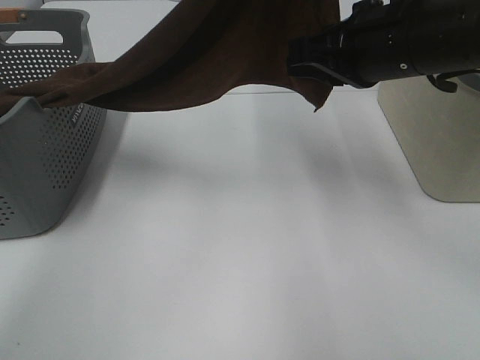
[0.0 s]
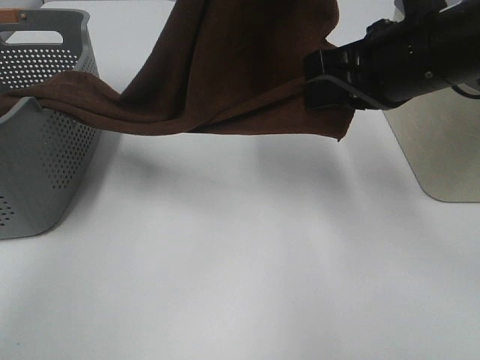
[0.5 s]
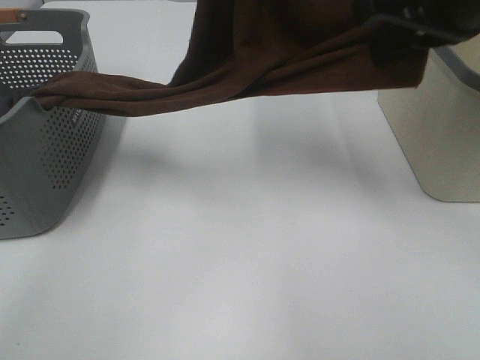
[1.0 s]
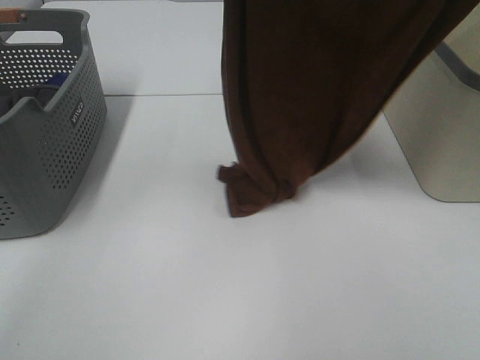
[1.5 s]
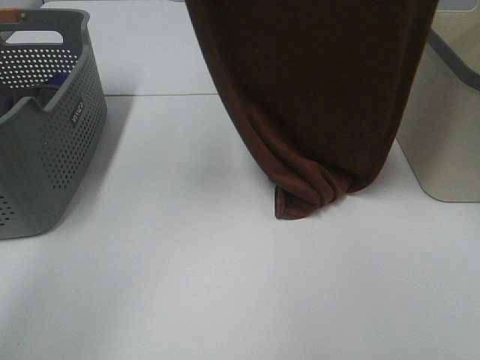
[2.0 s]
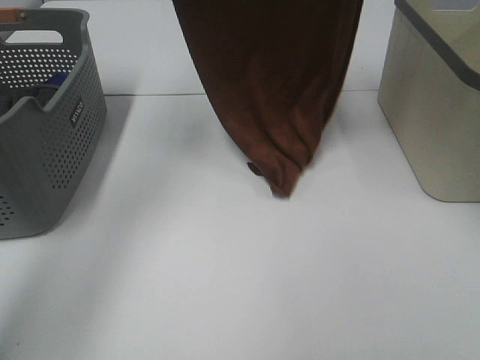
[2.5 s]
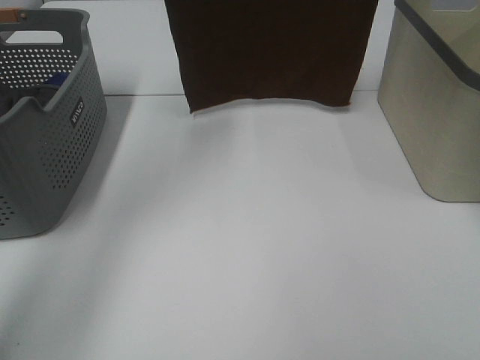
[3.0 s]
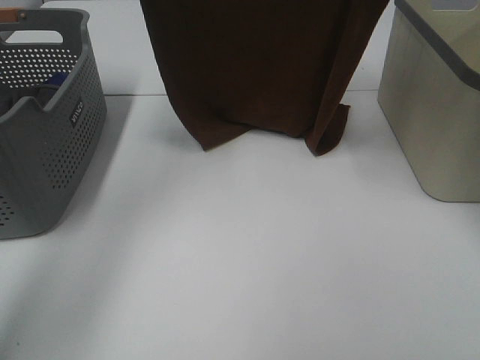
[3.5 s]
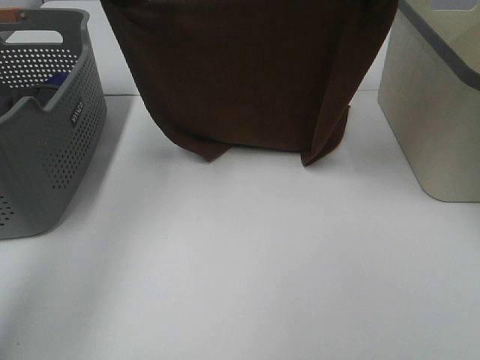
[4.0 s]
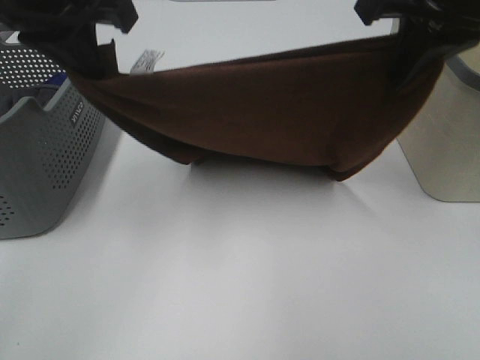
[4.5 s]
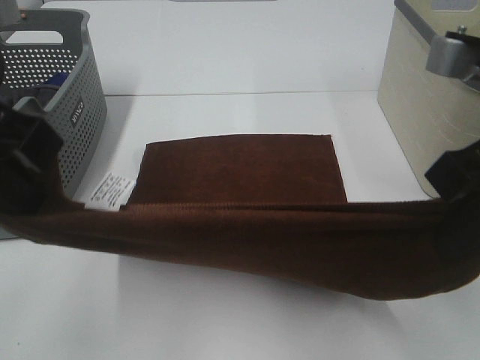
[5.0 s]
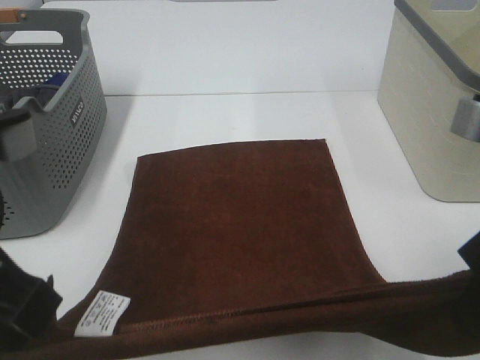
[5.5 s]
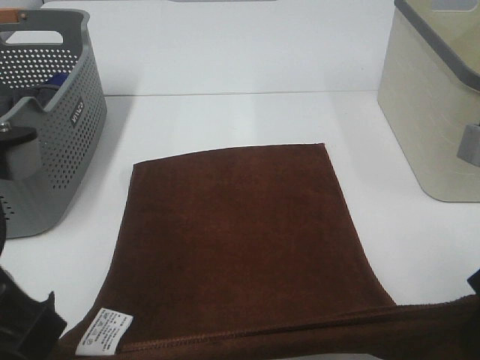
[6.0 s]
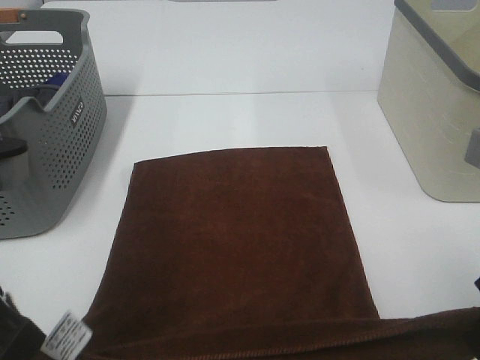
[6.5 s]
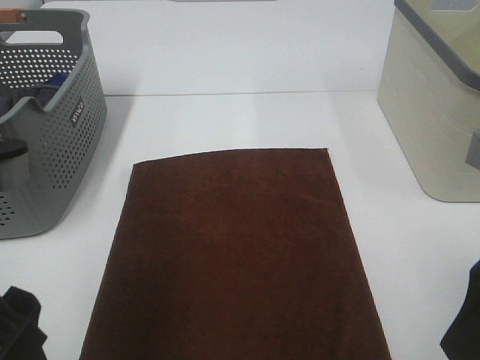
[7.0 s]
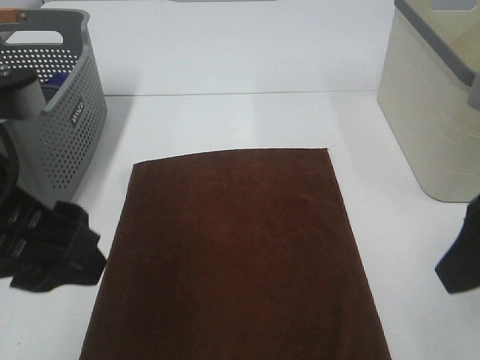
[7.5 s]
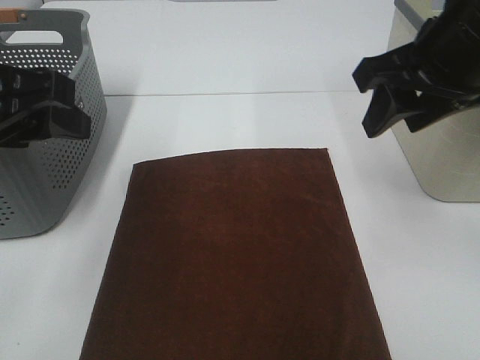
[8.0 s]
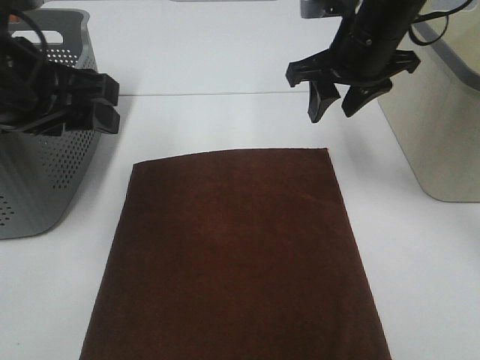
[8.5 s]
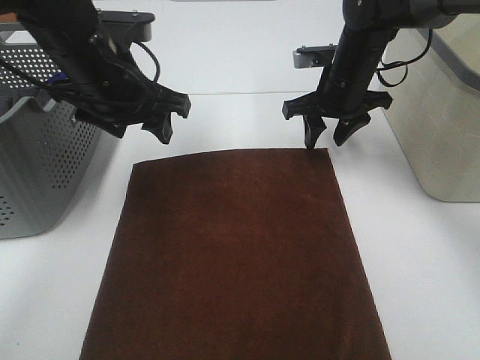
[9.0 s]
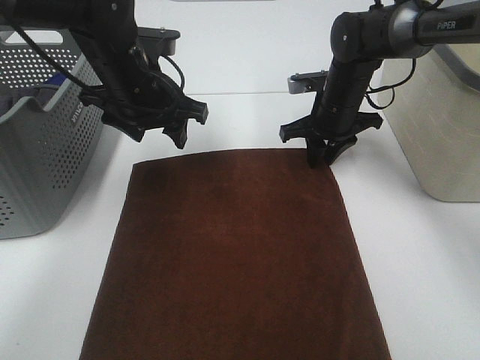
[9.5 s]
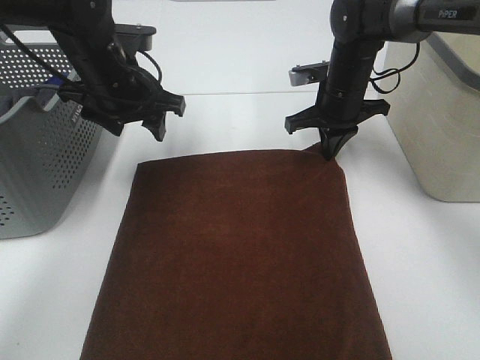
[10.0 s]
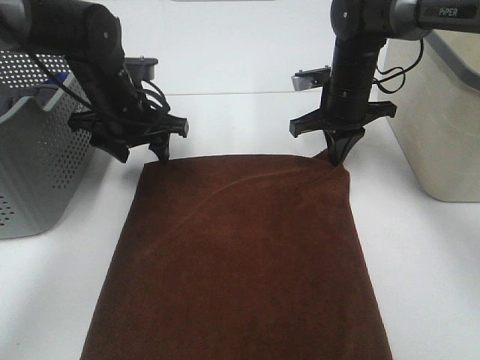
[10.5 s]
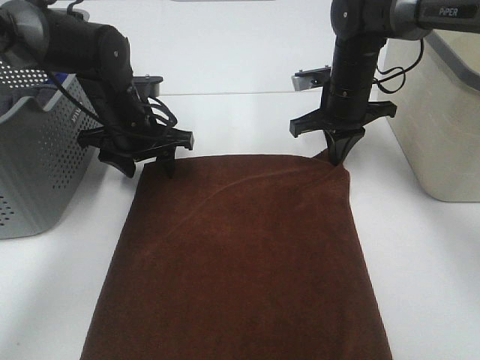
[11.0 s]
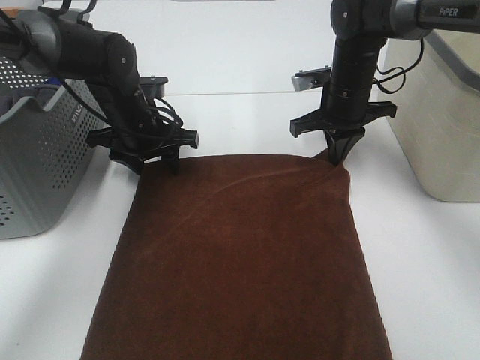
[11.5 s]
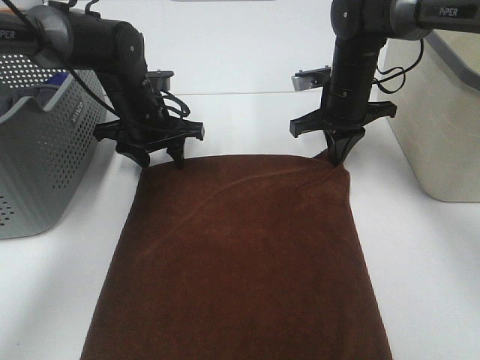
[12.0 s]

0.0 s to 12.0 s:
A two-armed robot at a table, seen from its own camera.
Task of the whole recording: Remove the towel and place it.
Step, 0.0 to 3.0 s: Left hand: spread the brown towel flat on the table.
Step, 0.0 to 3.0 s: Right hand: spread the brown towel flat on the table.
Step, 3.5 to 11.5 s: Left hand:adjust the brown towel.
Step, 3.5 to 11.5 s: Right hand:adjust the brown towel.
0.0 to 2.0 s: The right gripper shifts approximately 15 cm upward. The left gripper is displaced to the left and forward by approximately 10 cm.
2.0 to 4.0 s: The two grippers go approximately 5 cm downward.
4.0 to 6.0 s: The left gripper goes roughly 30 cm backward. Meanwhile the right gripper moves backward and downward, approximately 25 cm.
6.0 to 8.0 s: The right gripper heads forward, covering approximately 15 cm, and opens. Meanwhile the left gripper is displaced forward by roughly 10 cm, and opens.
8.0 to 10.0 s: Both grippers travel together forward and downward, about 25 cm. The right gripper closes.
10.0 to 12.0 s: The left gripper heads downward, covering some 5 cm.

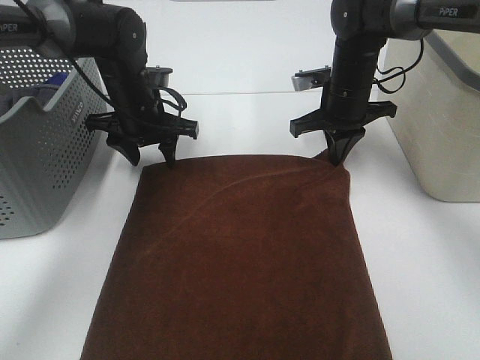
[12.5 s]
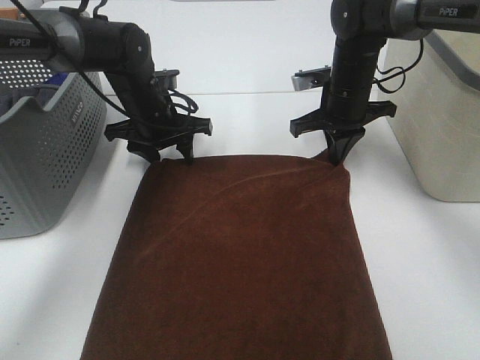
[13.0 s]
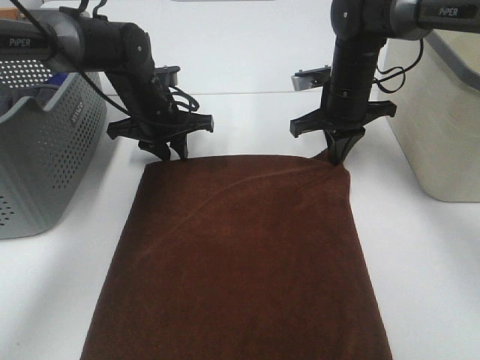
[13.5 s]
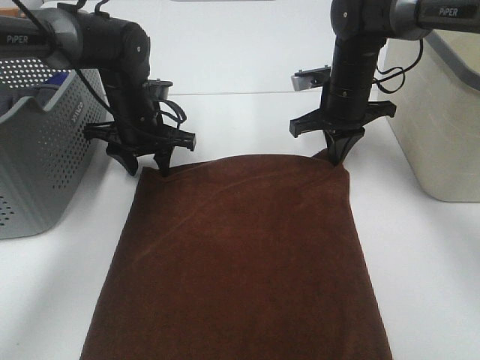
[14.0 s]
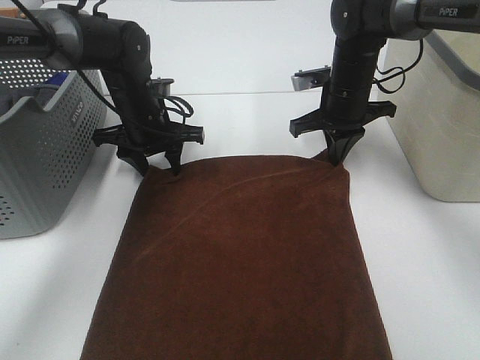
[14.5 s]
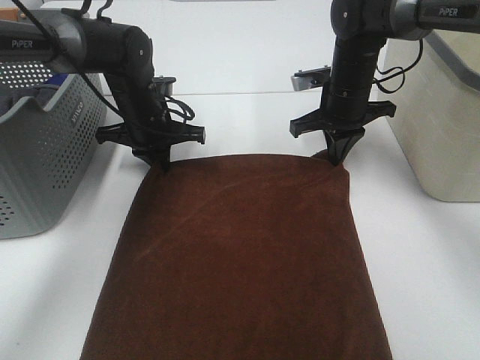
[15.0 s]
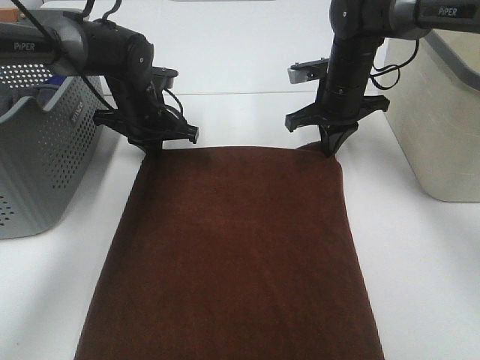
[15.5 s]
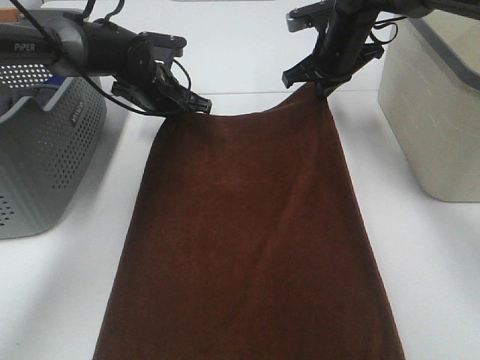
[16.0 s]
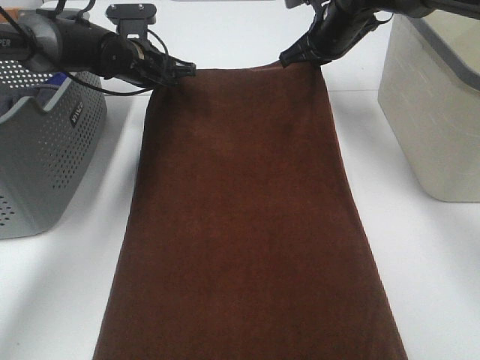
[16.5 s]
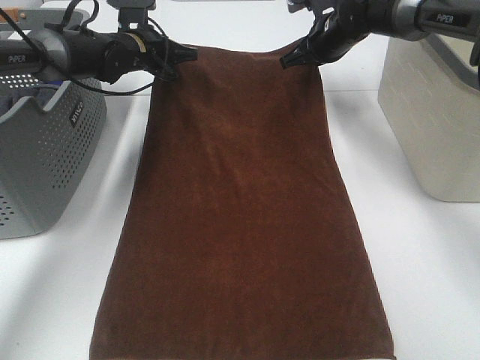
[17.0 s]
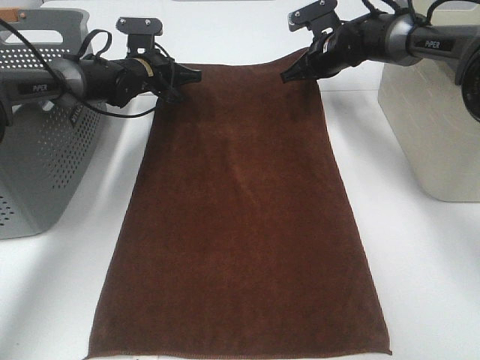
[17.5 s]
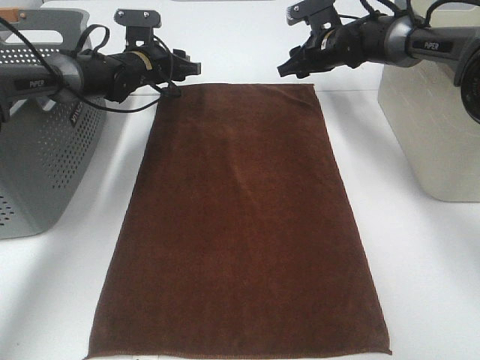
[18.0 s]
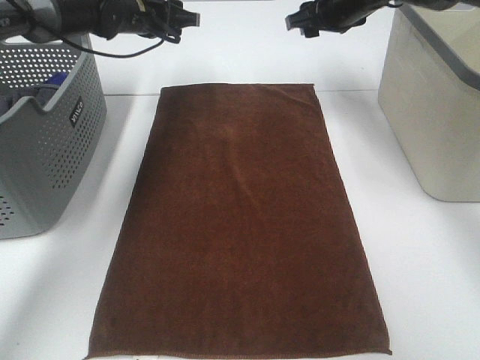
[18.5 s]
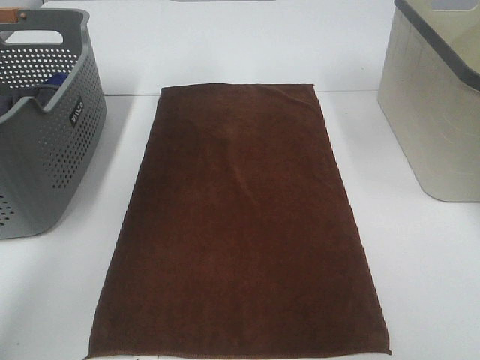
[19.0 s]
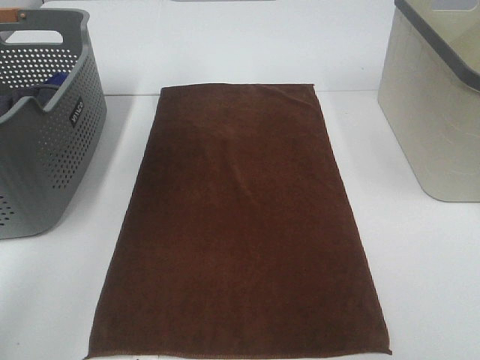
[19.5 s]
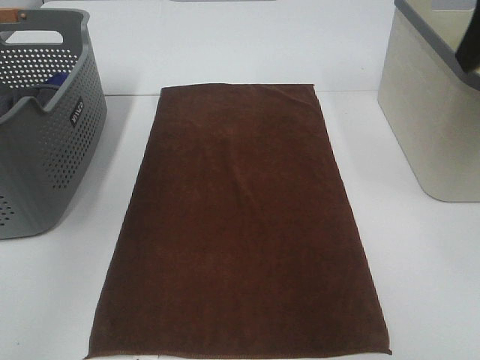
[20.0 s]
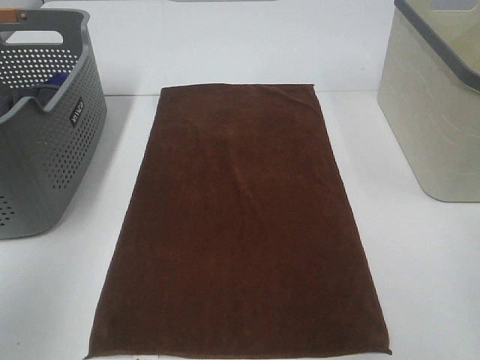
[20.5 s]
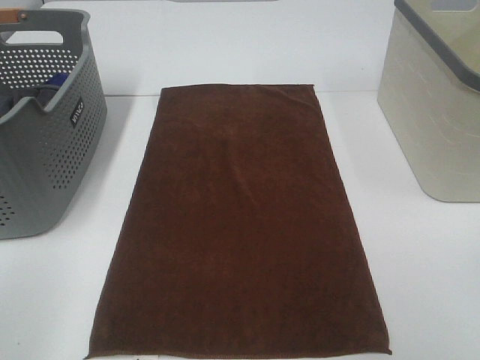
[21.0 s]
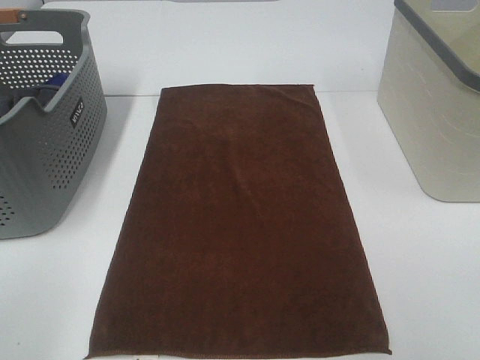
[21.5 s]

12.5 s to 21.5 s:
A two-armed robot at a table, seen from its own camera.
Task of the whole recording: Remove the towel and place it.
12.5 to 14.5 s: The grippers make only small movements.
14.5 to 17.0 s: Both grippers travel together forward, roughly 10 cm. The left gripper closes its fingers.
17.0 to 19.5 s: Both grippers move upward and backward, approximately 30 cm. The right gripper opens. The left gripper opens up.
19.5 to 21.5 s: The left gripper goes about 35 cm backward.

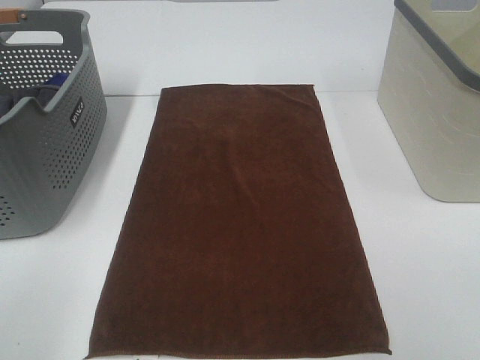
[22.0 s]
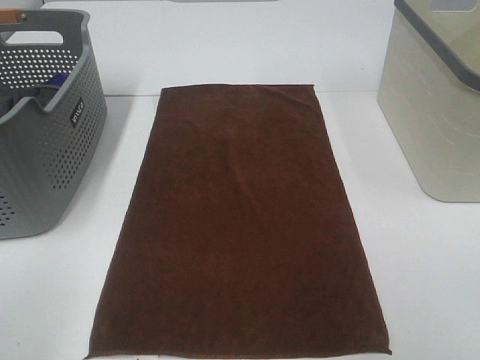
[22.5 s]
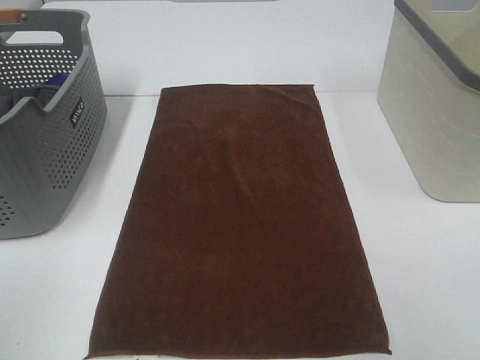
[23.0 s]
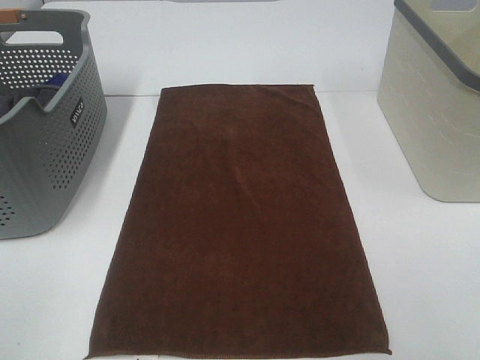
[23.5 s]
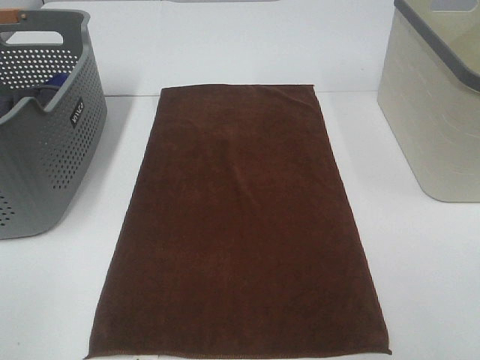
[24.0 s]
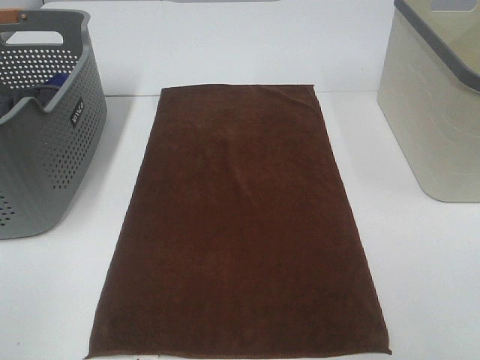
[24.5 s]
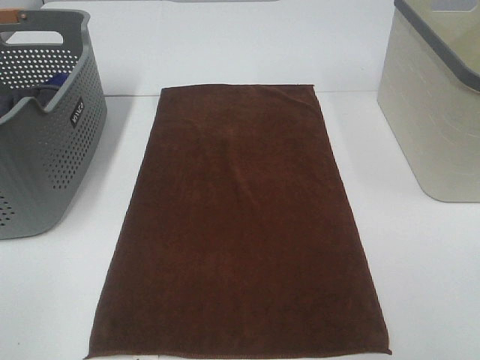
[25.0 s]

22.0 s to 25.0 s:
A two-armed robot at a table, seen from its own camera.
Task of the whole recording: Remove the towel and place it.
23.5 to 25.0 s: Neither gripper changes place.

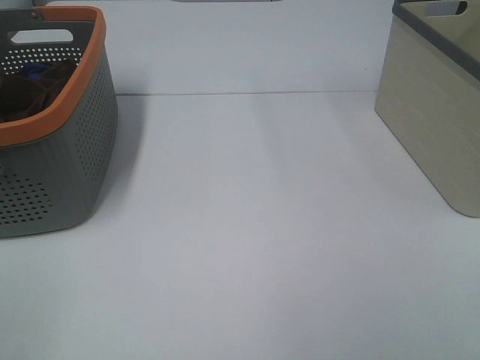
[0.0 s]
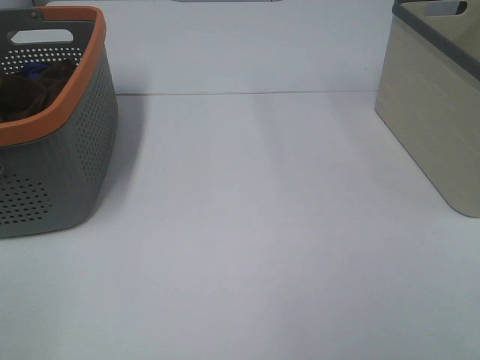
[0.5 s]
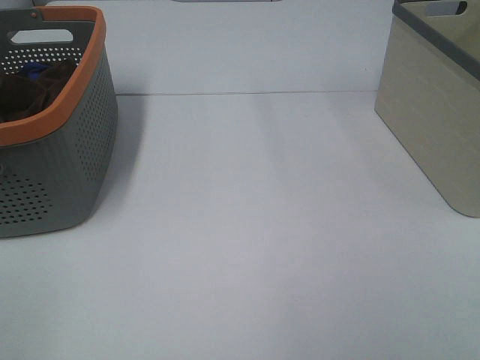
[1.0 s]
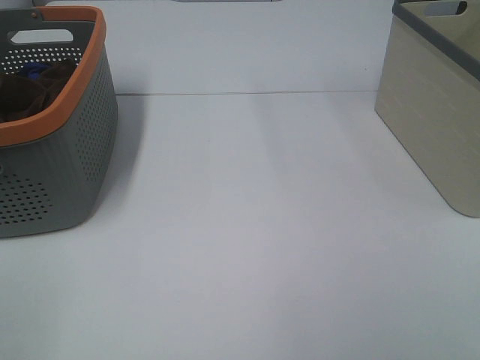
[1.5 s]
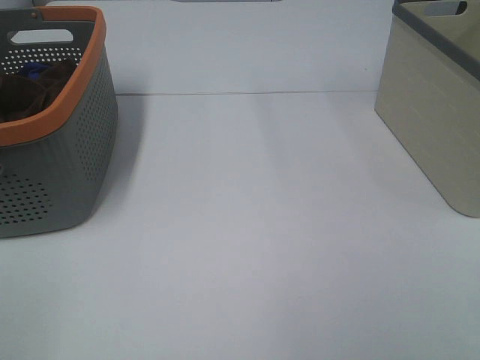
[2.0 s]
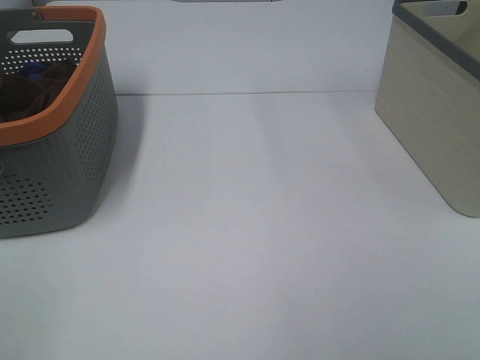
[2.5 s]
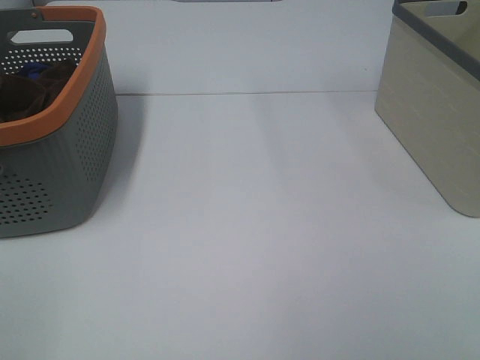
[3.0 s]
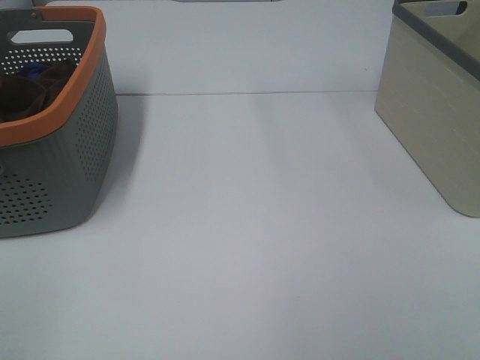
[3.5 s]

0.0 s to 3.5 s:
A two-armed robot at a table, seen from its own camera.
Task of the whole recording: Remove the towel and place it.
0.0 to 3.5 s: The two grippers keep their place.
